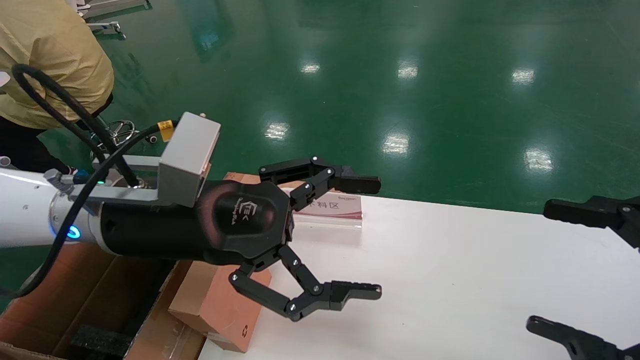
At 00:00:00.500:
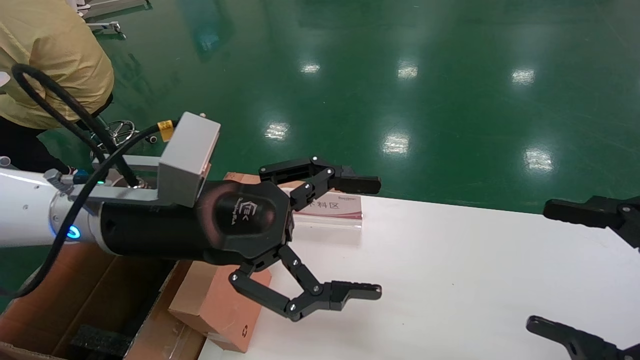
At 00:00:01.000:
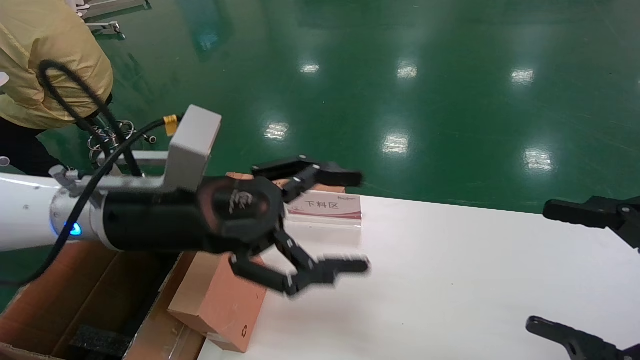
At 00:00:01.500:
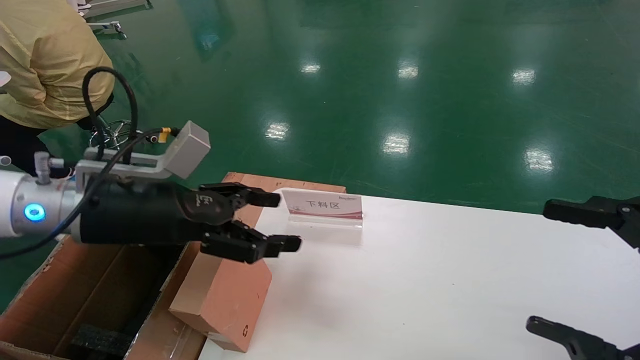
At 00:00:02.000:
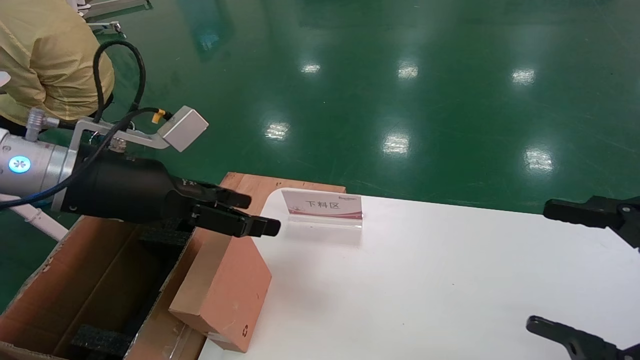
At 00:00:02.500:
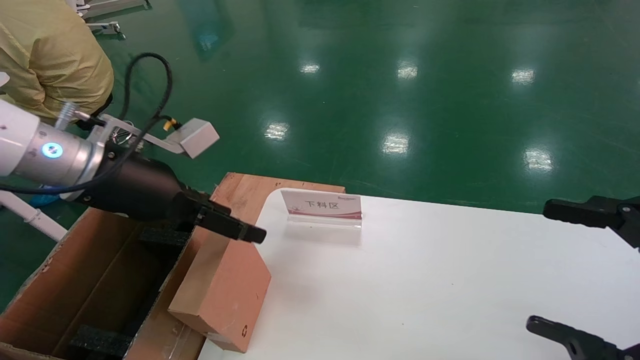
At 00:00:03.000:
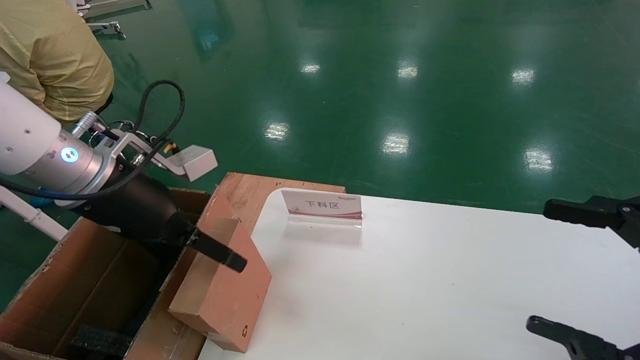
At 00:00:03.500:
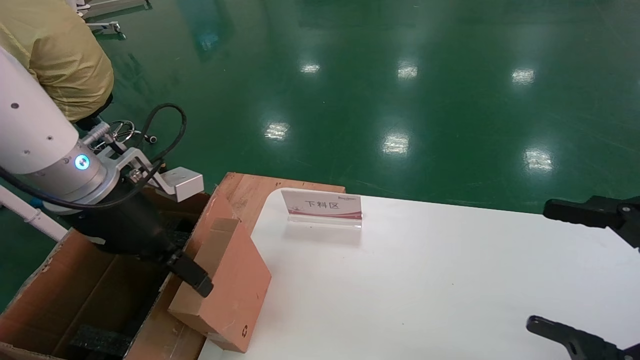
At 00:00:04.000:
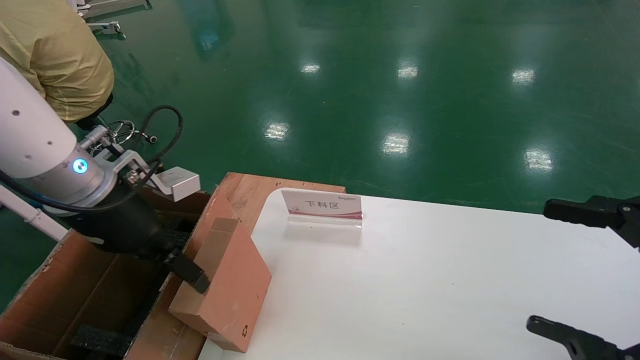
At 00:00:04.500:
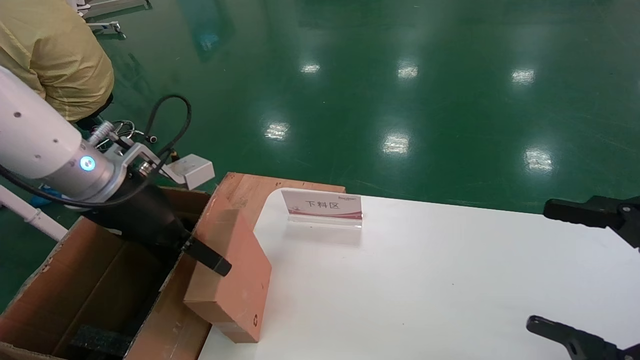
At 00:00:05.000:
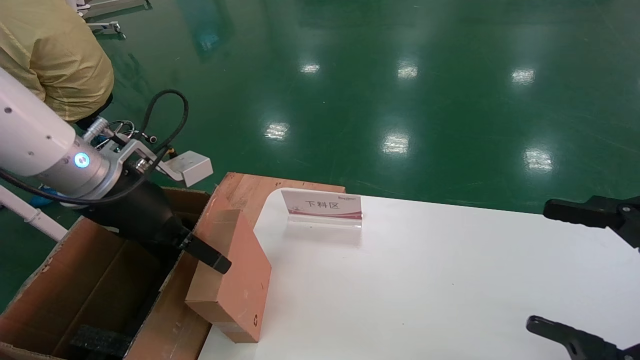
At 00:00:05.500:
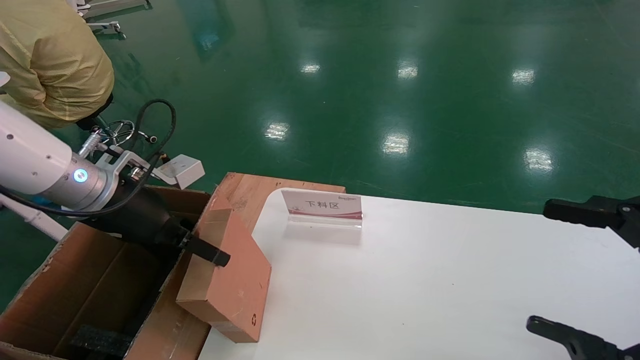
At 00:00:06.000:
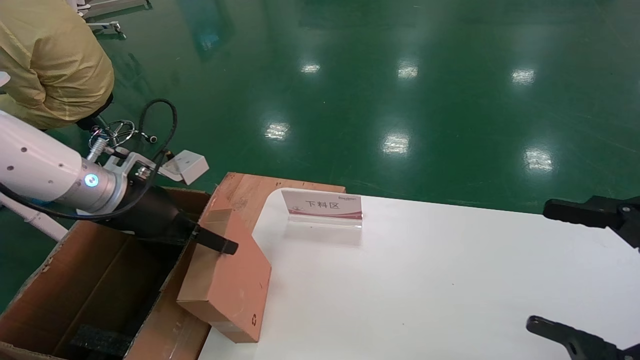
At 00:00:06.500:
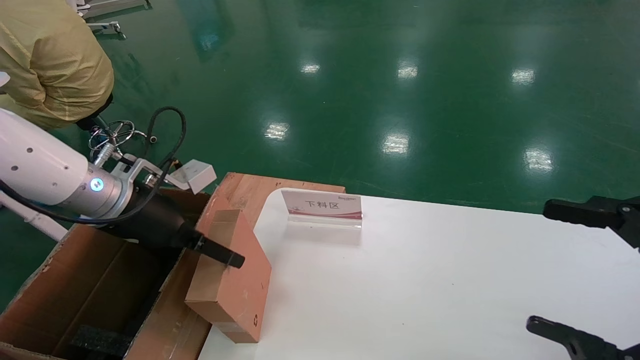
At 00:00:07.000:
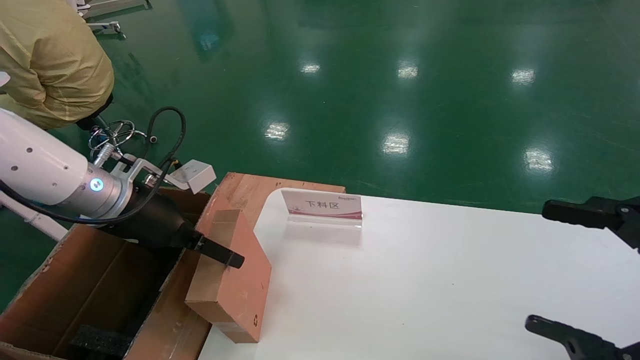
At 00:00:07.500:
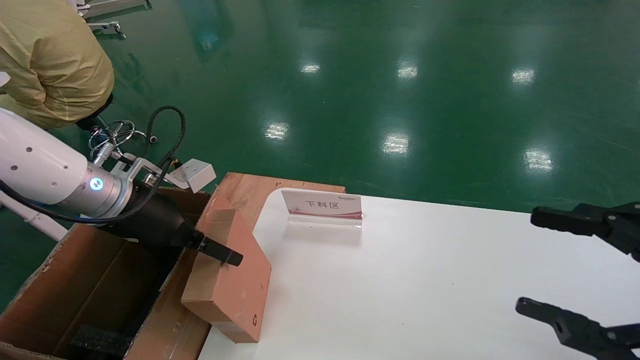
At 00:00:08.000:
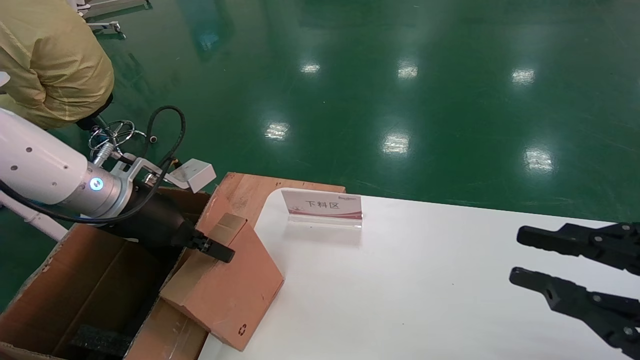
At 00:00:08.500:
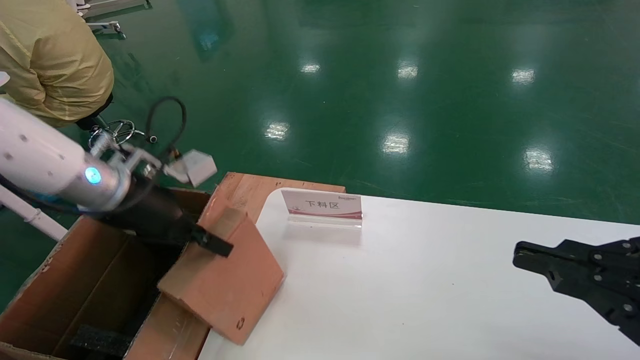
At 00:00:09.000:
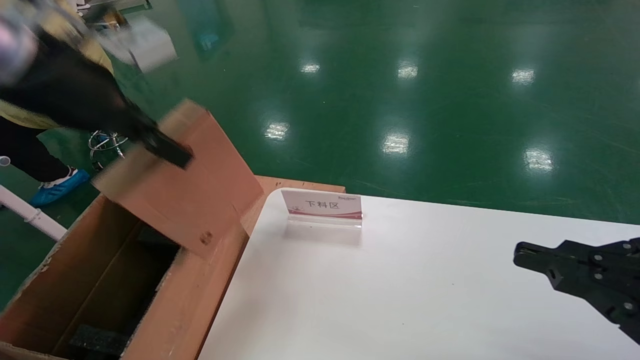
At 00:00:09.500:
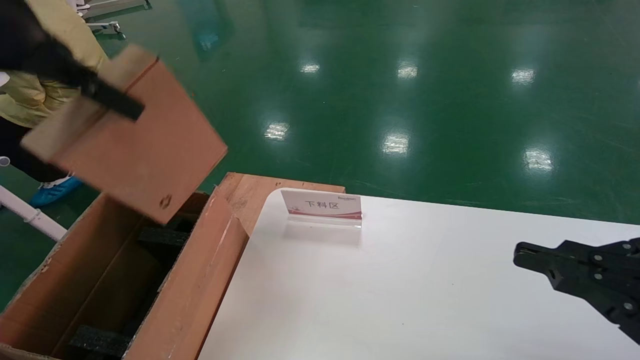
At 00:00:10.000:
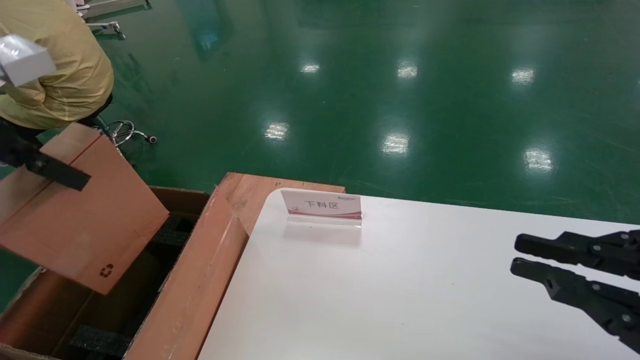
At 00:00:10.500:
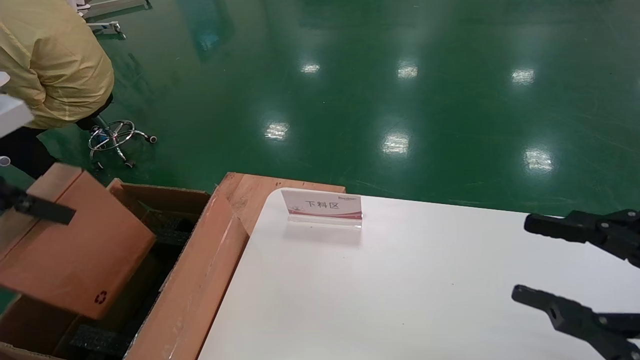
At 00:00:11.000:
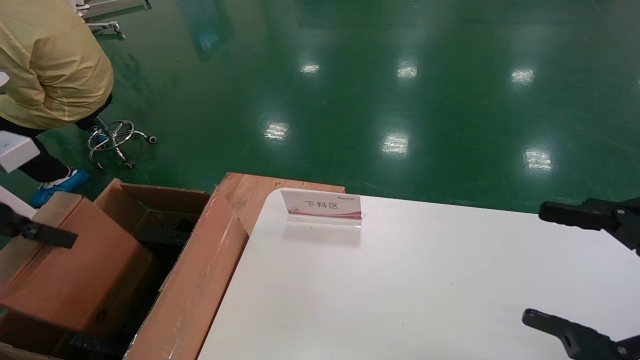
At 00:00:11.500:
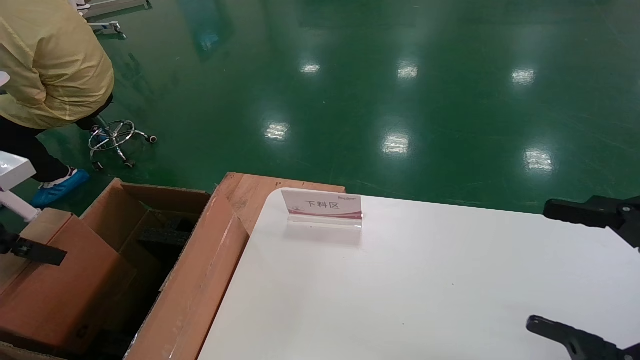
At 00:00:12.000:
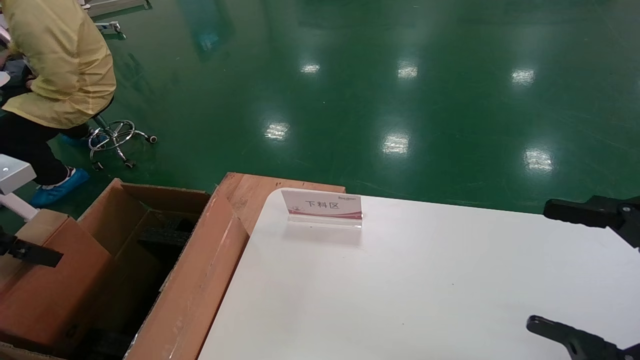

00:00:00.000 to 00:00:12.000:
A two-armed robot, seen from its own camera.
Task of the whole recording: pick up the small cardboard box and load it into the large cardboard box.
Step, 00:00:01.500 to 00:00:08.000: Pick up the mouse and power cord box.
00:00:00.000 to 00:00:02.000: The left gripper is displaced to the left by some 10 cm.
00:00:04.000 to 00:00:06.000: The left gripper shifts by some 5 cm.
00:00:06.000 to 00:00:08.000: The left gripper closes its fingers. Meanwhile the right gripper closes.
00:00:08.000 to 00:00:10.000: The left gripper heads upward and backward, covering some 20 cm.
00:00:10.000 to 00:00:12.000: The right gripper opens, while the left gripper shifts about 15 cm downward and to the left.

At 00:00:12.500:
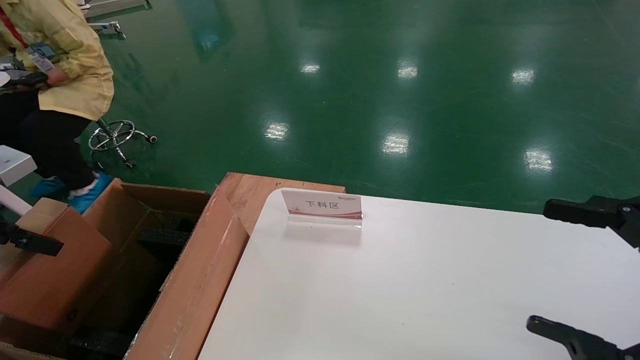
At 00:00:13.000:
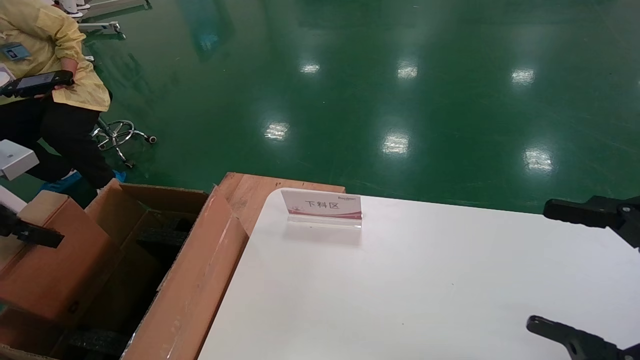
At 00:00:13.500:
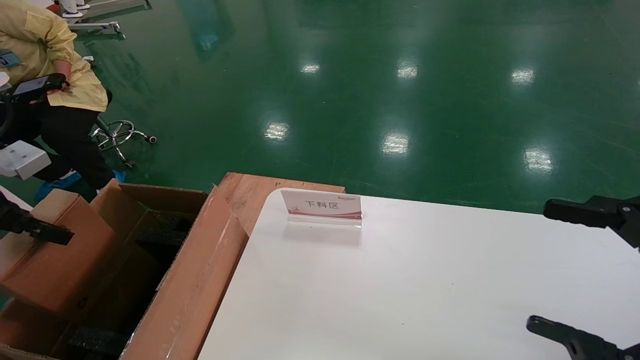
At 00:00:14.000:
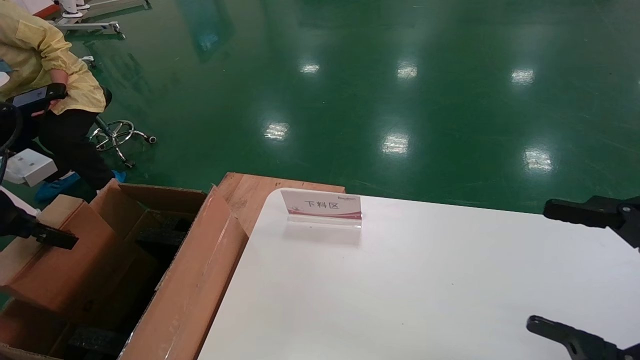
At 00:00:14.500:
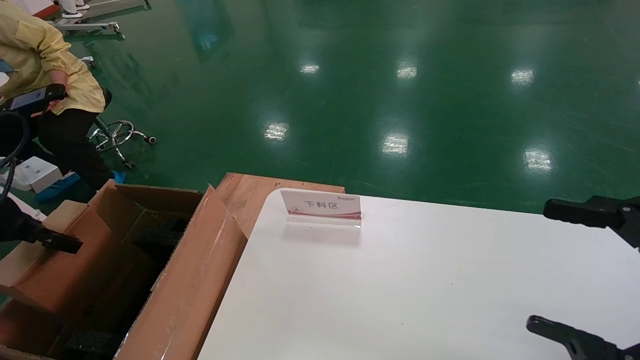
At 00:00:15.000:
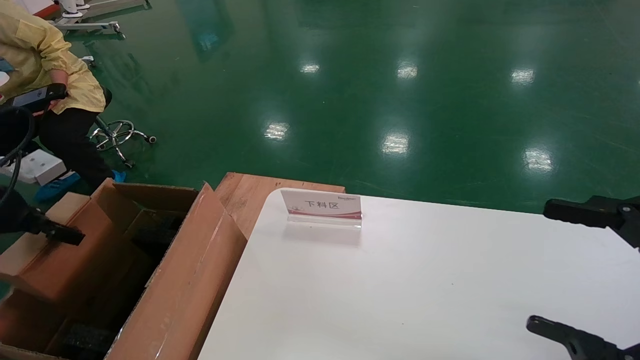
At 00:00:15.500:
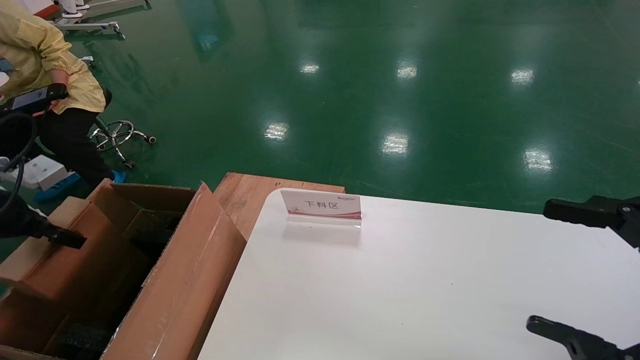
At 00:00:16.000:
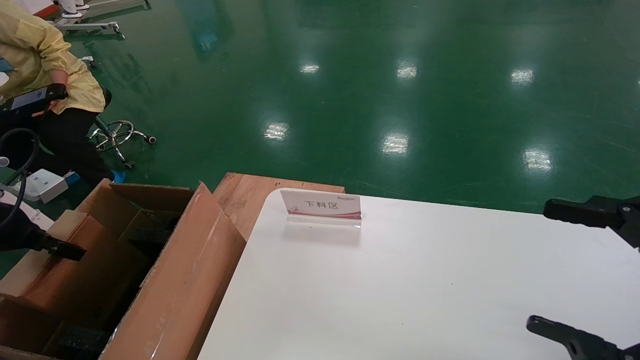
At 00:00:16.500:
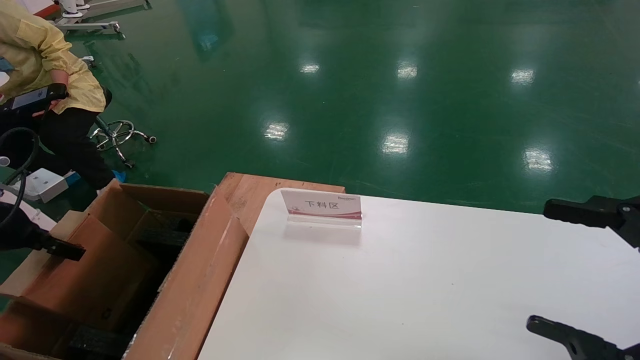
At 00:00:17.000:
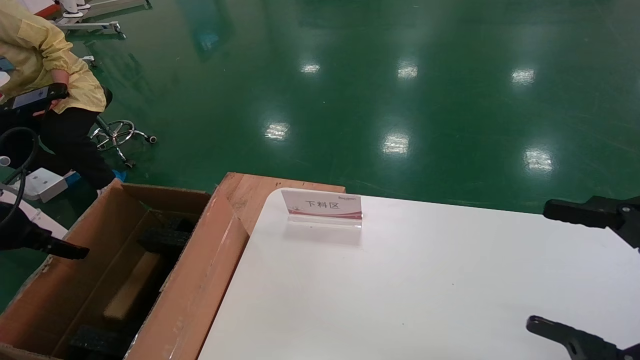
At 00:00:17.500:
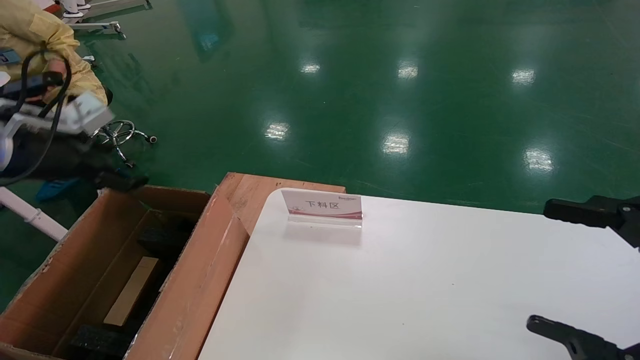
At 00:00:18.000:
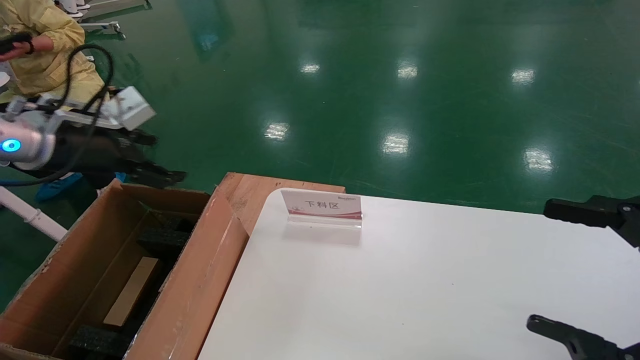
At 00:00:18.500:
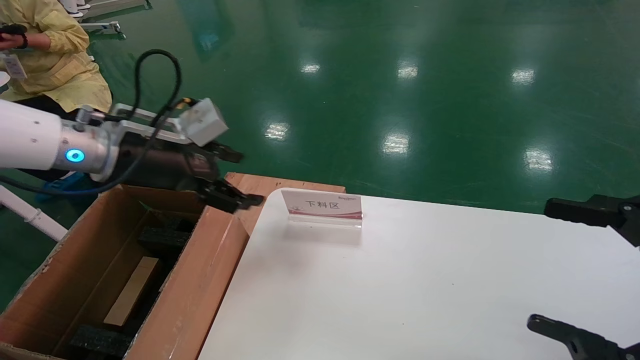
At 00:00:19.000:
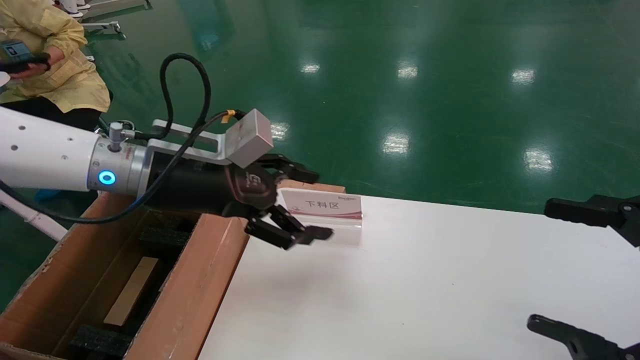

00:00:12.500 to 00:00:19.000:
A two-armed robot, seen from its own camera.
Task of the whole recording: pick up the small cardboard box and load it into the large cardboard box.
Step, 00:00:12.500 to 00:00:16.000: Place the mouse and power cord box into the case.
00:00:12.500 to 00:00:14.500: The left gripper changes place by about 5 cm.
00:00:14.500 to 00:00:17.000: The left gripper opens up.
00:00:17.000 to 00:00:19.000: The left gripper heads to the right, covering some 30 cm, and opens.
